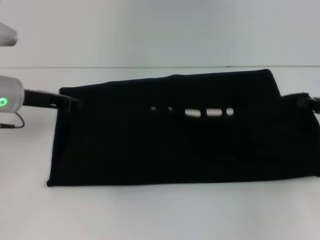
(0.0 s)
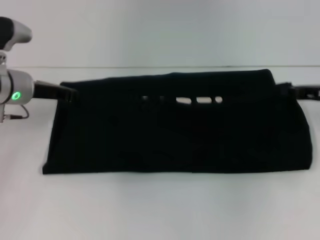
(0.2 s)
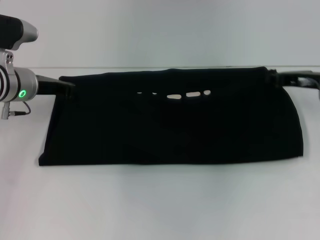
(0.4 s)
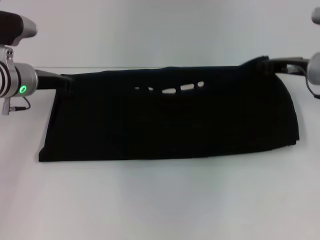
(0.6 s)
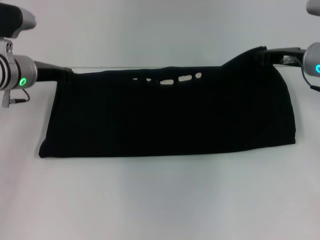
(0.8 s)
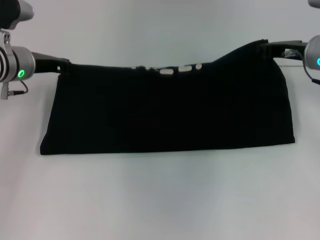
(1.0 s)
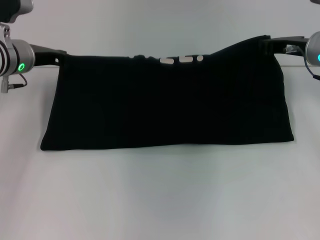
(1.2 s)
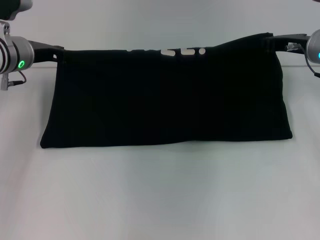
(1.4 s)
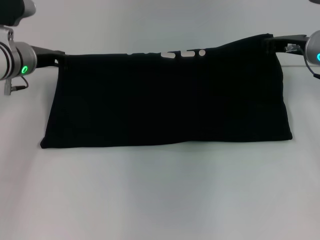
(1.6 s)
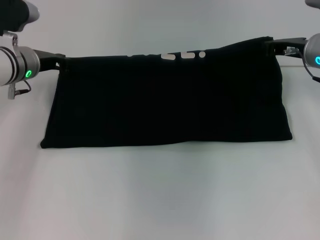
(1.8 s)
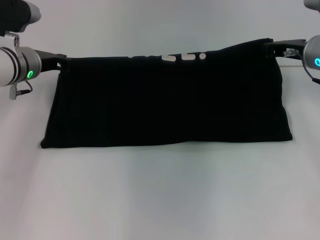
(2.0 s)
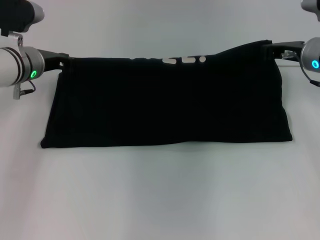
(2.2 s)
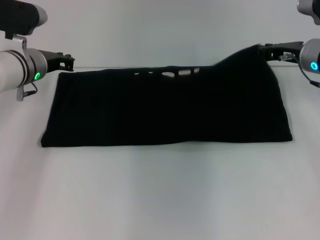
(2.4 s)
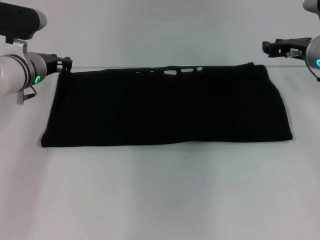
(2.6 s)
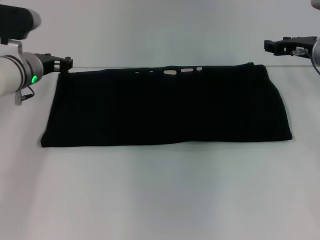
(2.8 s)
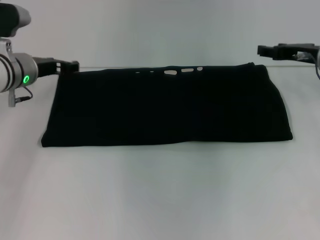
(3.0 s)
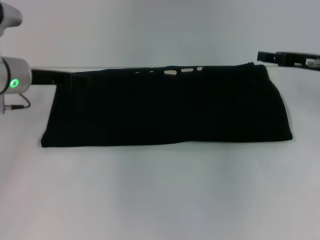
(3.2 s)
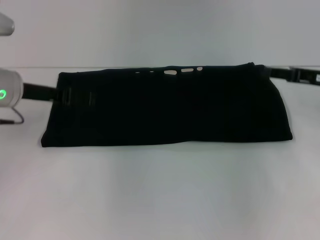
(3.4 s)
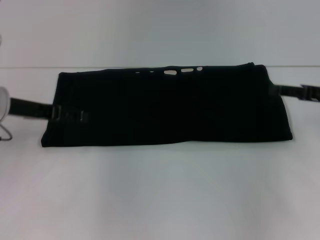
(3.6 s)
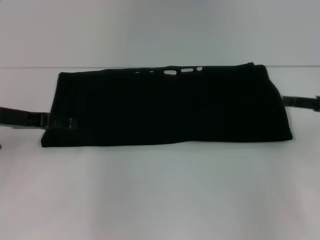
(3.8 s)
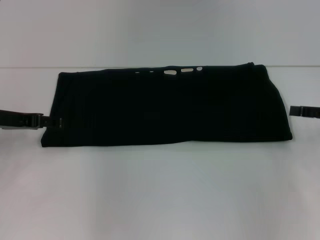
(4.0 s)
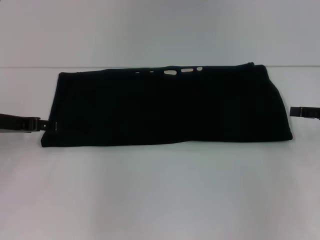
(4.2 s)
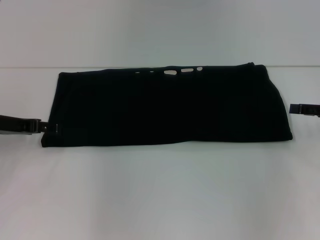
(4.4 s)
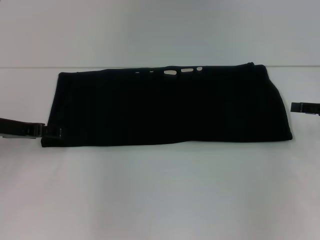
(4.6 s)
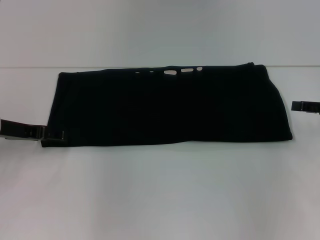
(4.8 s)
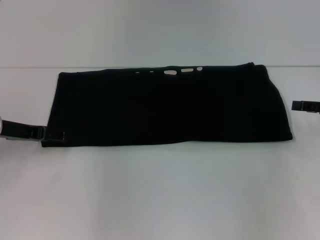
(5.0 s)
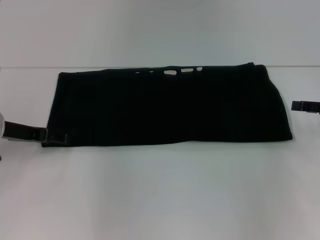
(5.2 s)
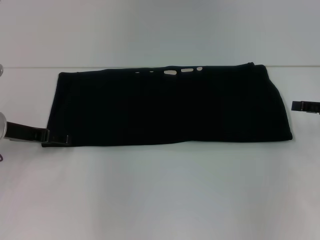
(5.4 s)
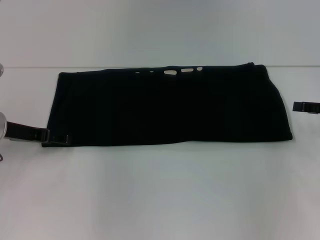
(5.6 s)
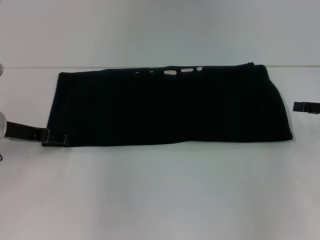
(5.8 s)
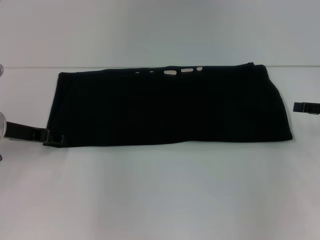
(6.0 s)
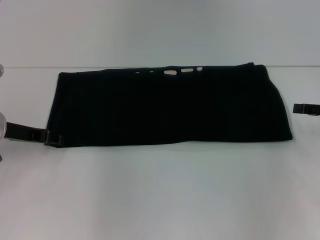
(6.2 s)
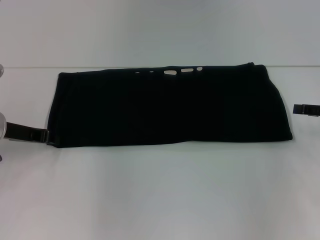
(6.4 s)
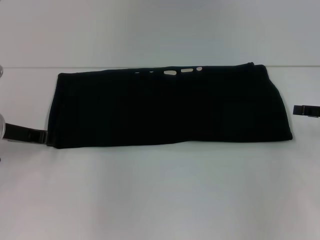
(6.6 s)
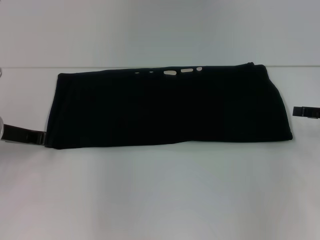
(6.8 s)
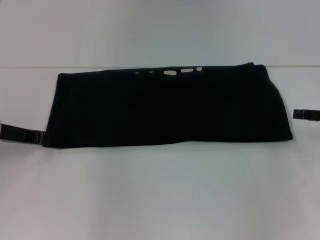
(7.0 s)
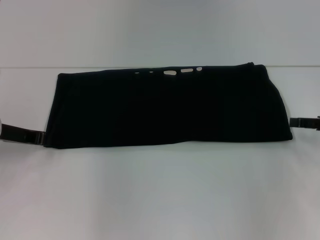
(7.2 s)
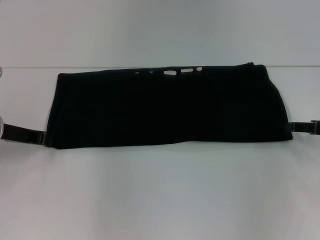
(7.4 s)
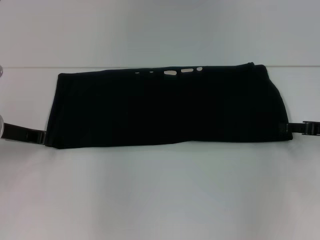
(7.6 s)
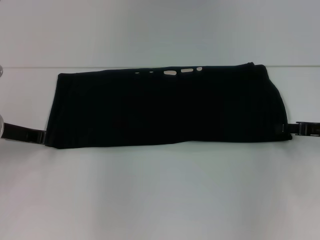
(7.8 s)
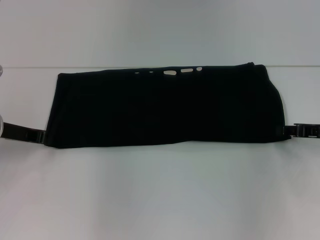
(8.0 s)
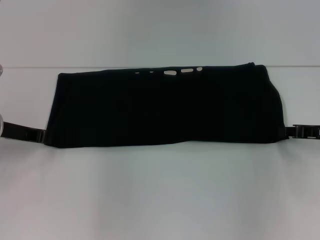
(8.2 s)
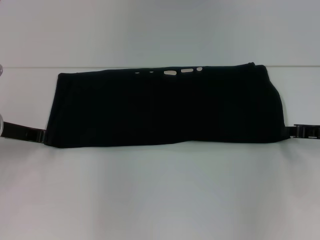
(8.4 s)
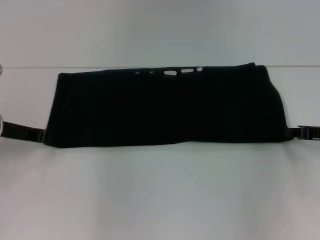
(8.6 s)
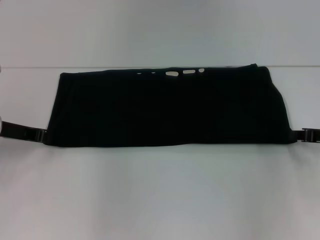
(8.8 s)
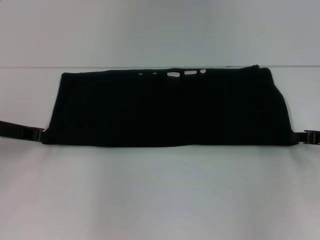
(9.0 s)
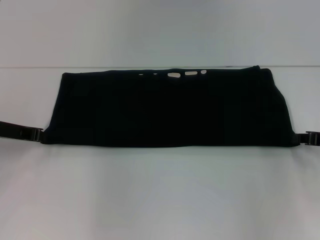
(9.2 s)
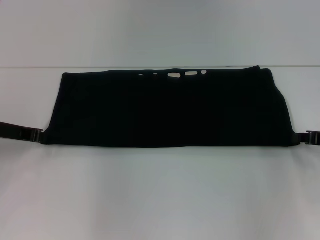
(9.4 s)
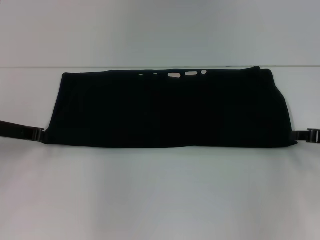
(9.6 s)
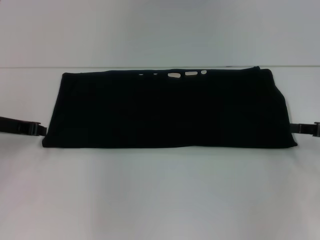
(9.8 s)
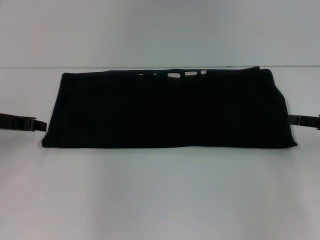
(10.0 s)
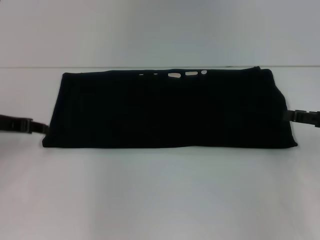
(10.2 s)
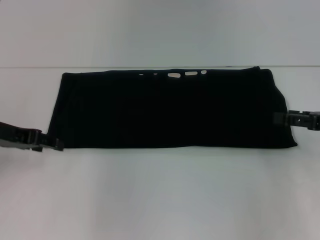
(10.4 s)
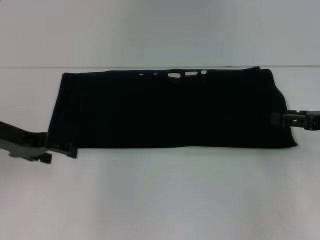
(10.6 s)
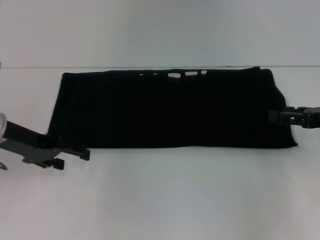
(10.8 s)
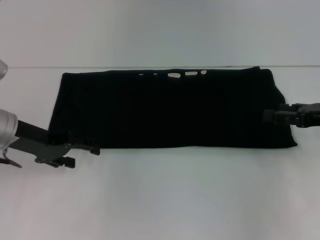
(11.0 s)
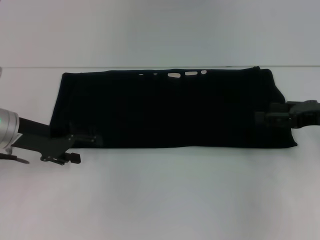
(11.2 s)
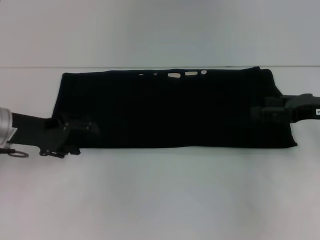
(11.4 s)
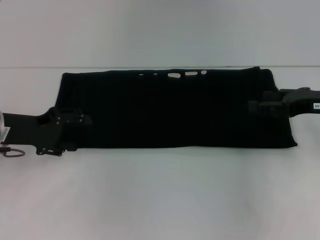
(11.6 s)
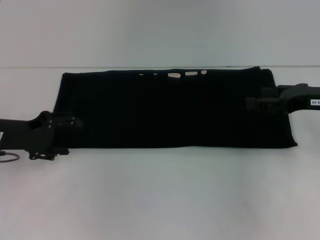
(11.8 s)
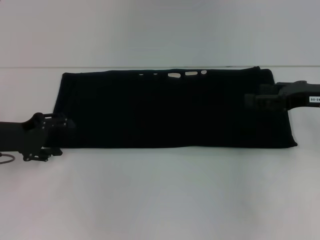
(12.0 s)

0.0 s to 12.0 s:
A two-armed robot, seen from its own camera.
Step, 0.0 to 3.6 s: Fold the clothes with your right hand.
0.0 to 1.6 s: The right gripper is displaced forward and to the left by some 15 cm. Meanwhile the left gripper moves forward, roughly 5 cm.
1.6 to 3.0 s: The right gripper opens its fingers. Meanwhile the left gripper opens its fingers.
3.0 to 4.4 s: The right gripper heads backward and to the right, covering approximately 15 cm. Meanwhile the left gripper is displaced backward and to the left by about 10 cm, and opens up.
4.4 to 6.0 s: There are only small adjustments of the grippers.
6.0 to 7.6 s: The left gripper closes up.
7.6 to 9.0 s: The right gripper closes.
9.0 to 10.4 s: The right gripper opens. Meanwhile the left gripper opens its fingers.
10.4 to 12.0 s: The left gripper moves about 5 cm, and opens. The right gripper changes place by some 5 cm.

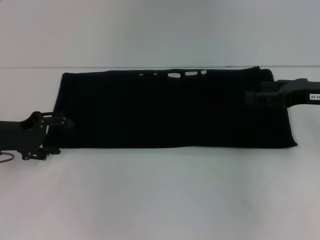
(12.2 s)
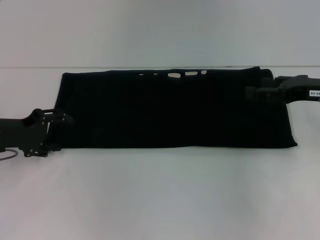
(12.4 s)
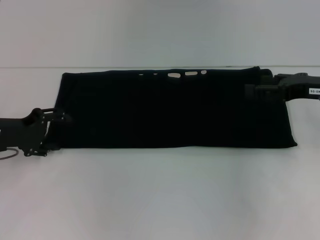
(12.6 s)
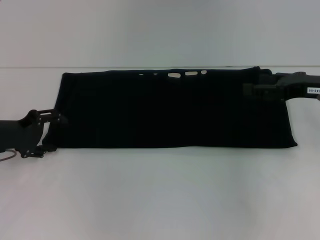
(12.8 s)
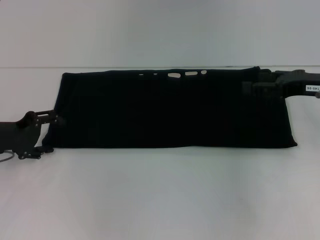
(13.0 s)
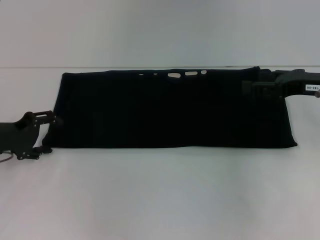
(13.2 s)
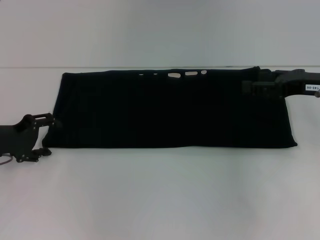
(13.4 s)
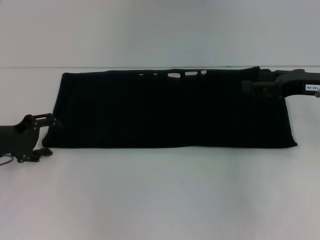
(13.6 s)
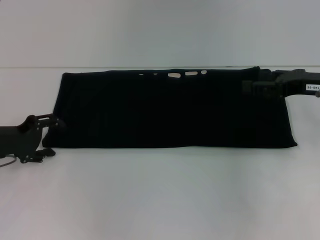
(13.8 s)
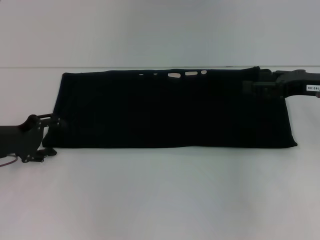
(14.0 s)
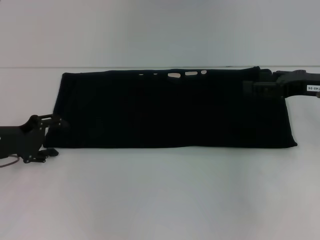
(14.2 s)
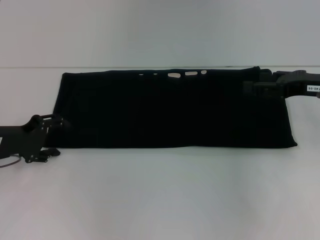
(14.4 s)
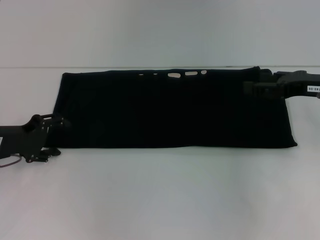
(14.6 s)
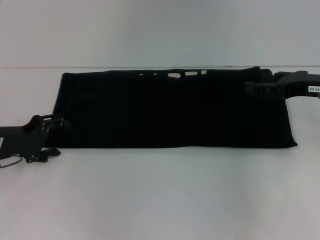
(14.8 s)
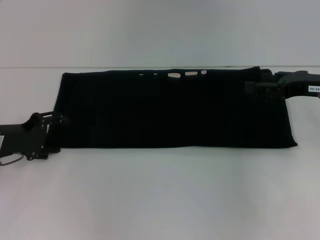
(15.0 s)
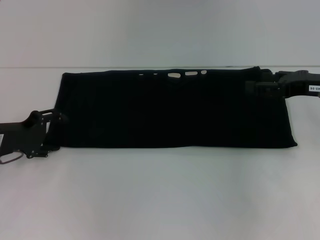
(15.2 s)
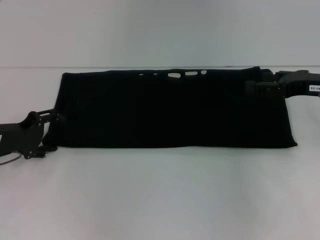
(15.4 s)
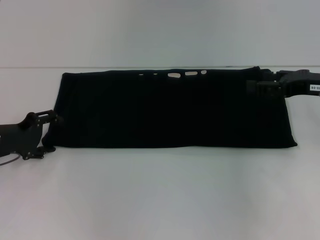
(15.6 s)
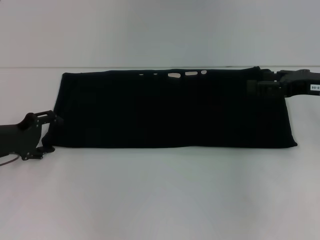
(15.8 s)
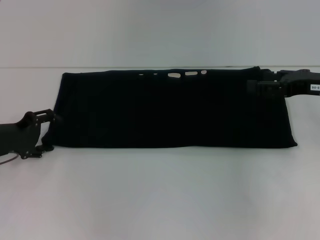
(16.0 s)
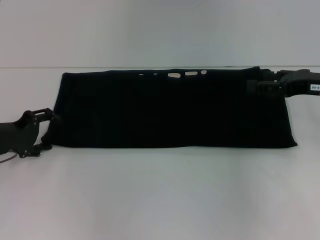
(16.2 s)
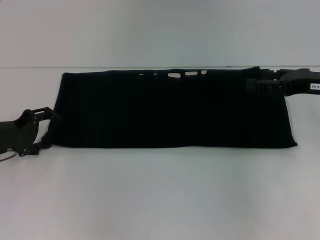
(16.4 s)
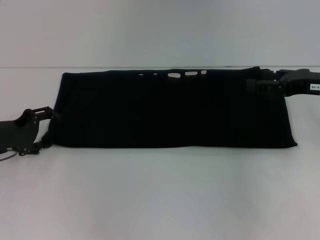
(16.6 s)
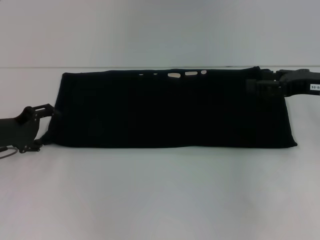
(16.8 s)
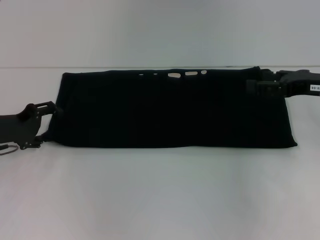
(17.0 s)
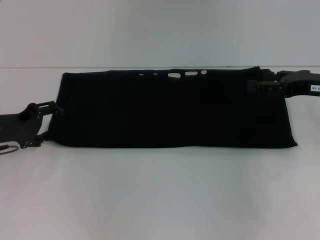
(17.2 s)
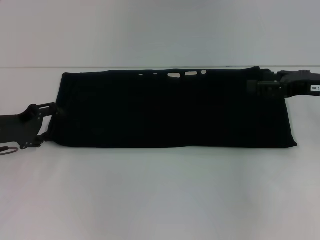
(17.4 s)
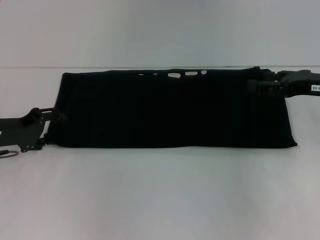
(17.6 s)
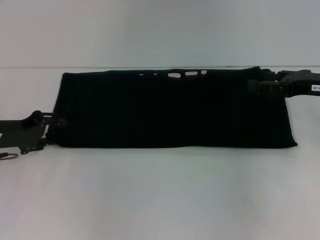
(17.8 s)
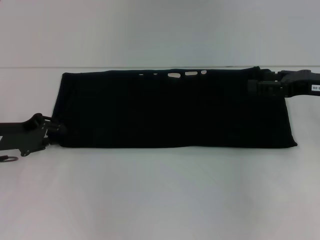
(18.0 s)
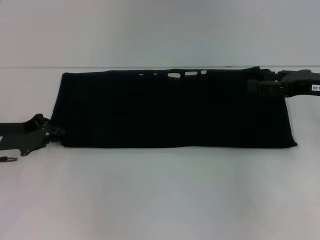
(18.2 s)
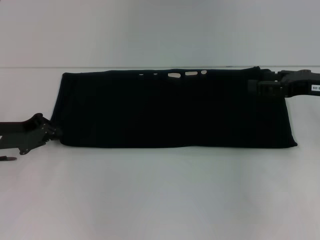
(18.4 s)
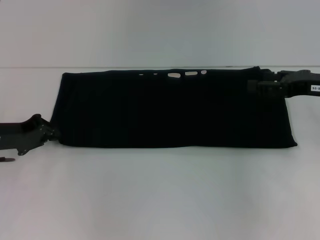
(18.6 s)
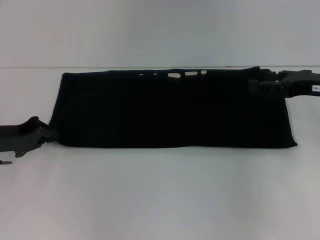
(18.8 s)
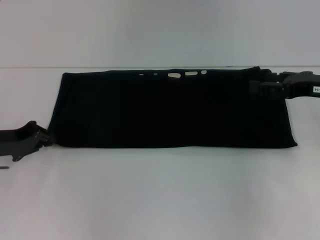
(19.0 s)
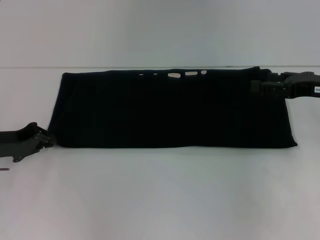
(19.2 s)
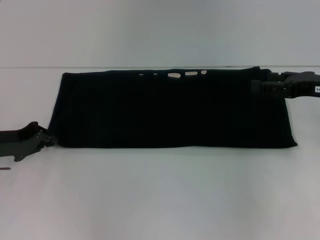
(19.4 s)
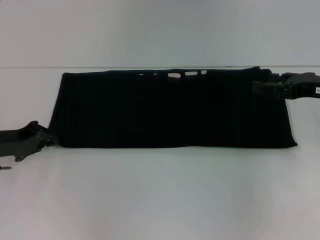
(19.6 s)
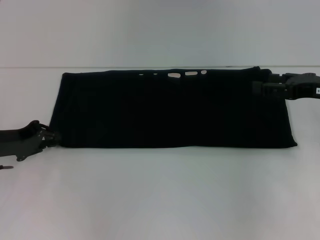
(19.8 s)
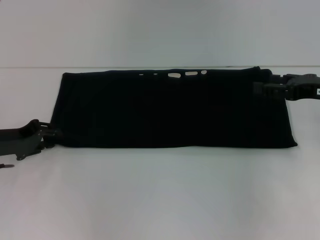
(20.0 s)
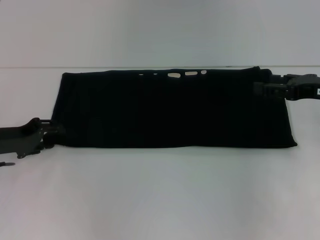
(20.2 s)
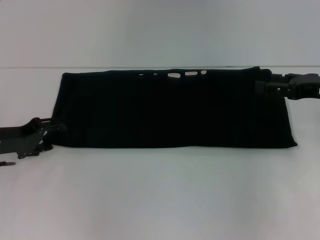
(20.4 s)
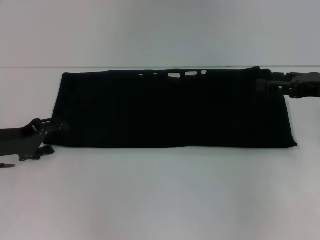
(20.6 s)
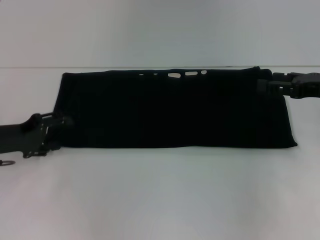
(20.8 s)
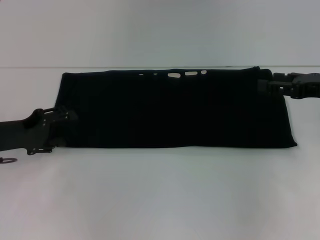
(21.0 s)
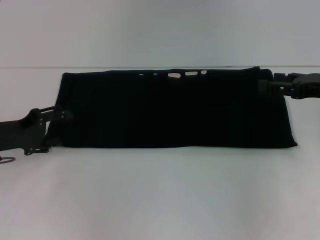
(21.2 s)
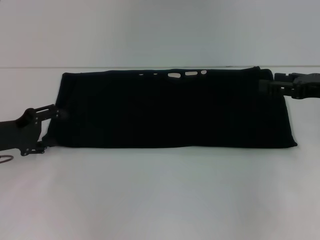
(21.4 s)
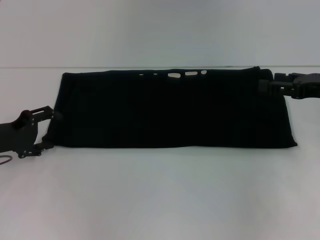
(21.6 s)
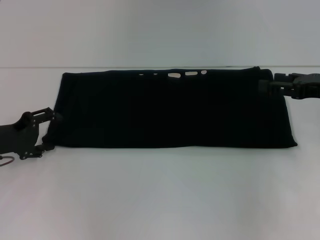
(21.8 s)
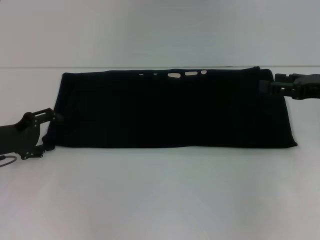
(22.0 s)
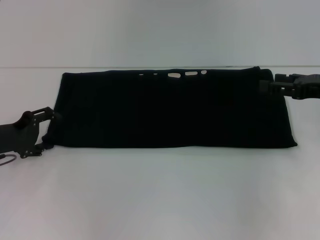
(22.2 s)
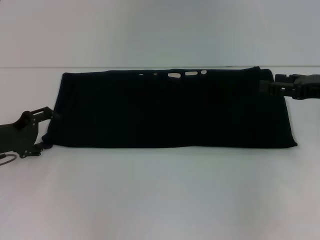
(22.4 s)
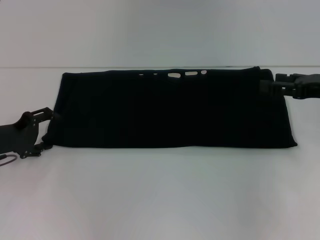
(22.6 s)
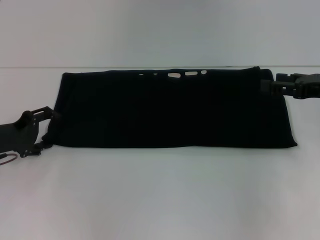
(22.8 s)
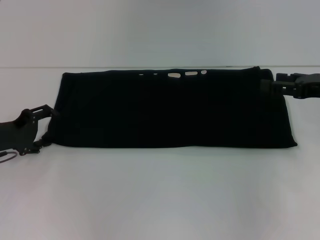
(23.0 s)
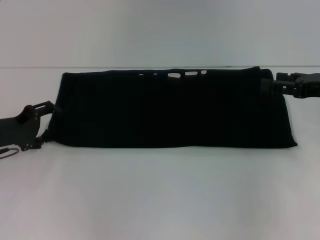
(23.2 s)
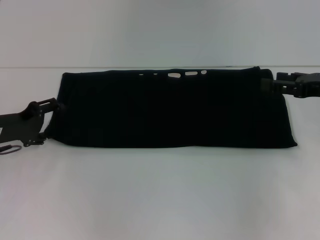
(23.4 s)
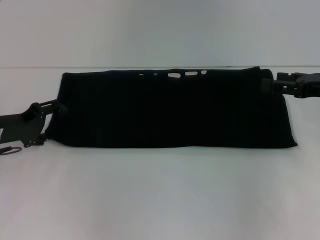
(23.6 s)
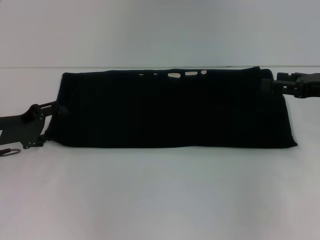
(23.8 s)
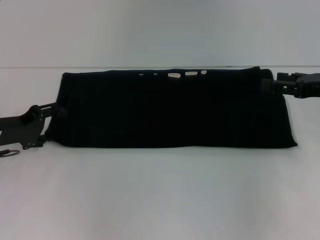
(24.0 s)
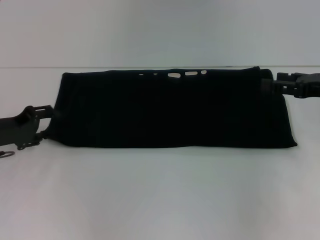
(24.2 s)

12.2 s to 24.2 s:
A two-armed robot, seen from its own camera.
12.2 to 13.8 s: The grippers stay close to where they were, moving slightly.
13.8 to 15.2 s: Both grippers stay put.
15.2 to 16.6 s: Both grippers stay put.
16.6 to 18.2 s: The left gripper closes up.
18.2 to 19.8 s: There are only small adjustments of the grippers.
19.8 to 21.2 s: The left gripper opens.
21.2 to 24.2 s: The grippers move only a little.
